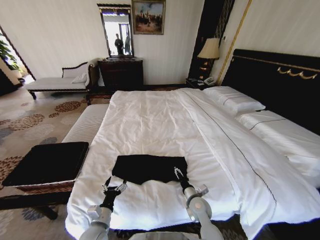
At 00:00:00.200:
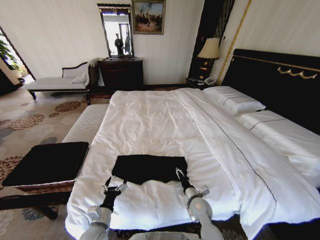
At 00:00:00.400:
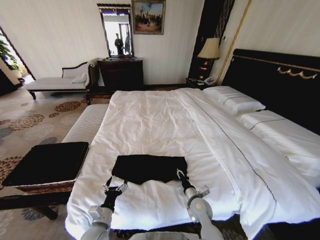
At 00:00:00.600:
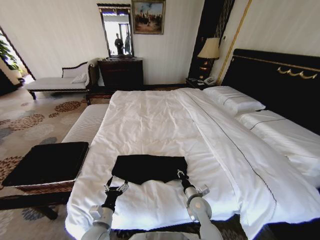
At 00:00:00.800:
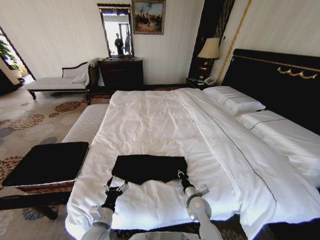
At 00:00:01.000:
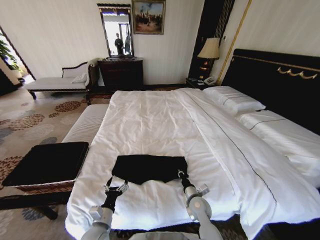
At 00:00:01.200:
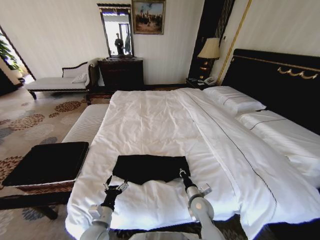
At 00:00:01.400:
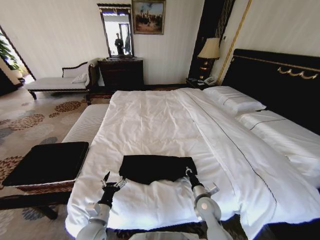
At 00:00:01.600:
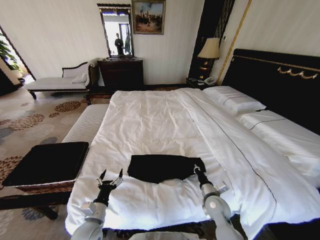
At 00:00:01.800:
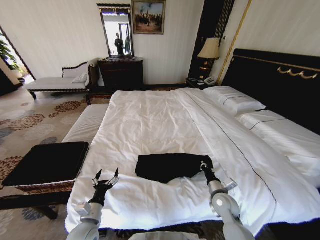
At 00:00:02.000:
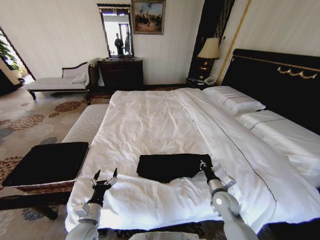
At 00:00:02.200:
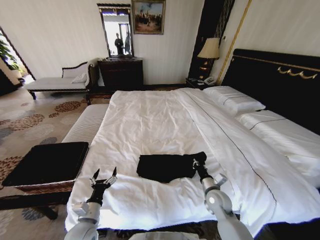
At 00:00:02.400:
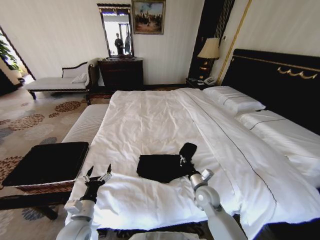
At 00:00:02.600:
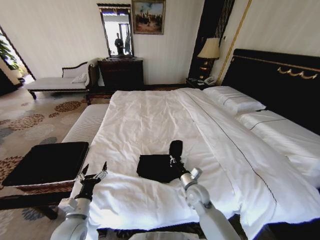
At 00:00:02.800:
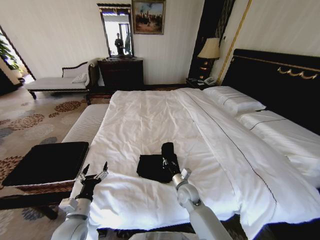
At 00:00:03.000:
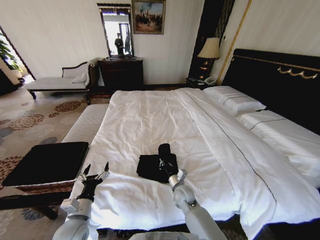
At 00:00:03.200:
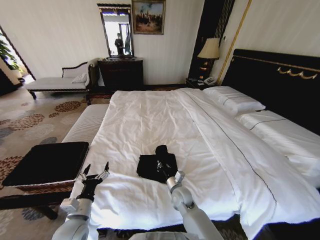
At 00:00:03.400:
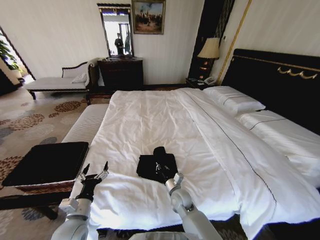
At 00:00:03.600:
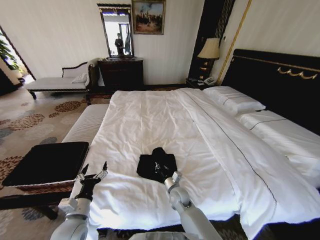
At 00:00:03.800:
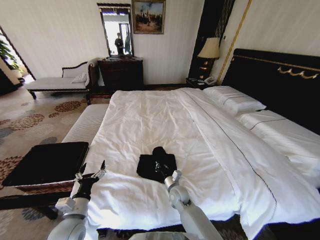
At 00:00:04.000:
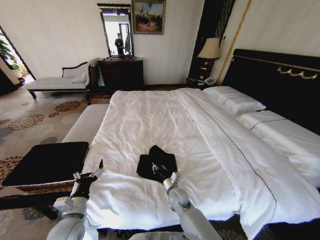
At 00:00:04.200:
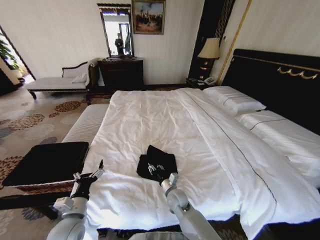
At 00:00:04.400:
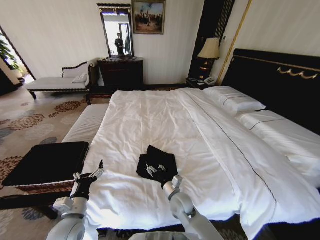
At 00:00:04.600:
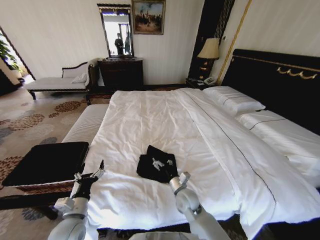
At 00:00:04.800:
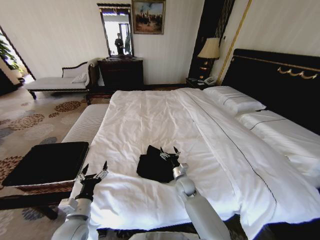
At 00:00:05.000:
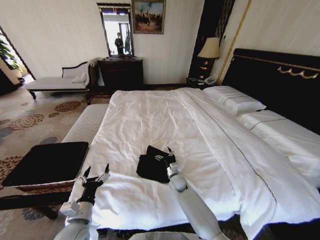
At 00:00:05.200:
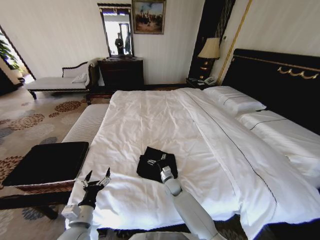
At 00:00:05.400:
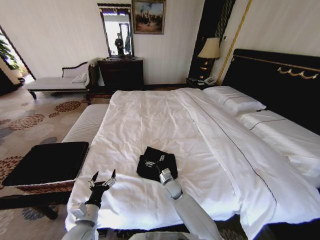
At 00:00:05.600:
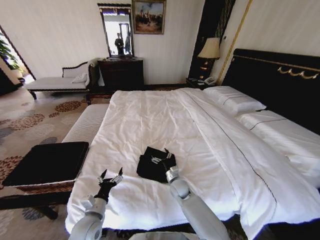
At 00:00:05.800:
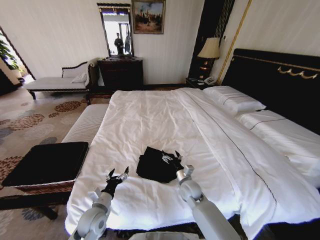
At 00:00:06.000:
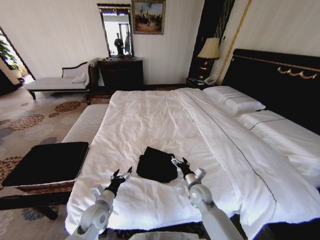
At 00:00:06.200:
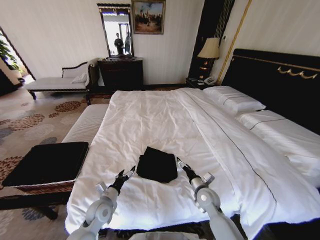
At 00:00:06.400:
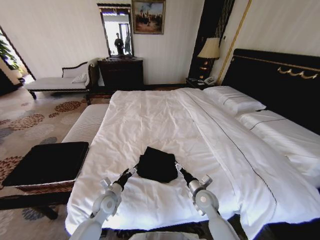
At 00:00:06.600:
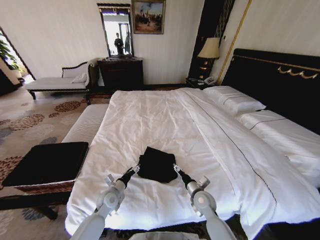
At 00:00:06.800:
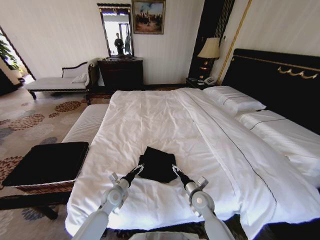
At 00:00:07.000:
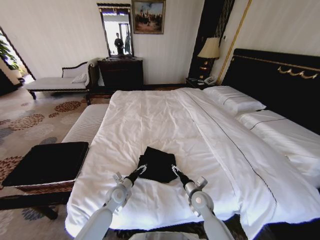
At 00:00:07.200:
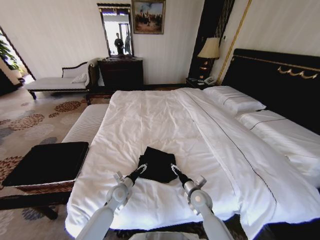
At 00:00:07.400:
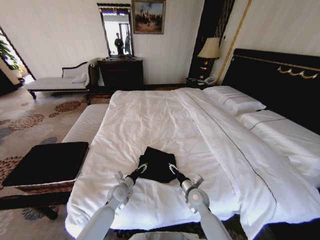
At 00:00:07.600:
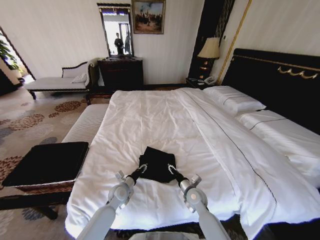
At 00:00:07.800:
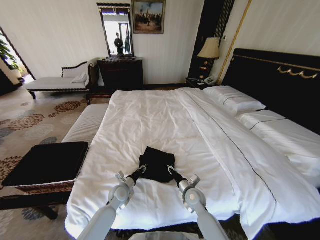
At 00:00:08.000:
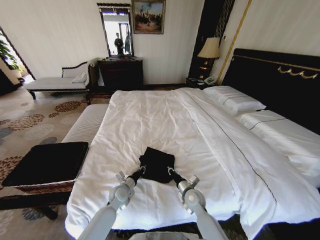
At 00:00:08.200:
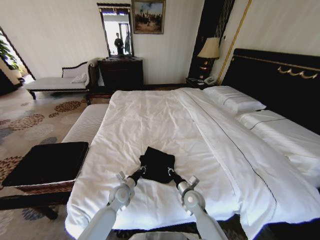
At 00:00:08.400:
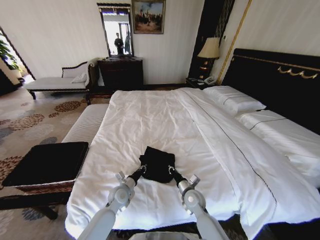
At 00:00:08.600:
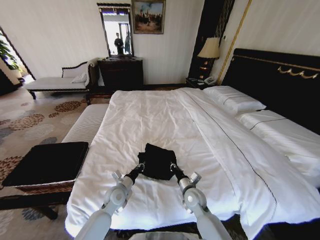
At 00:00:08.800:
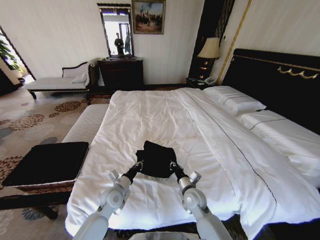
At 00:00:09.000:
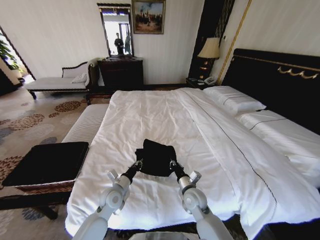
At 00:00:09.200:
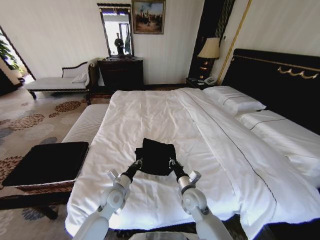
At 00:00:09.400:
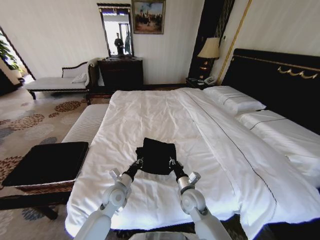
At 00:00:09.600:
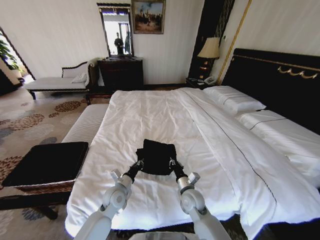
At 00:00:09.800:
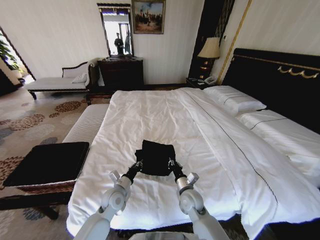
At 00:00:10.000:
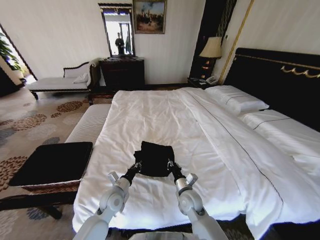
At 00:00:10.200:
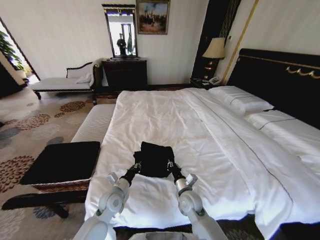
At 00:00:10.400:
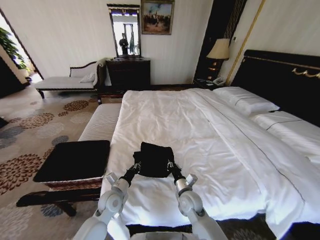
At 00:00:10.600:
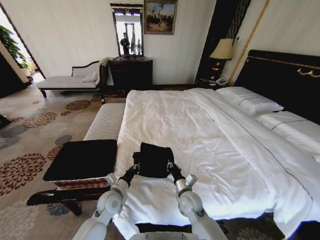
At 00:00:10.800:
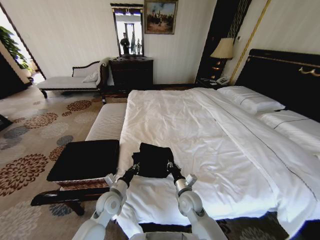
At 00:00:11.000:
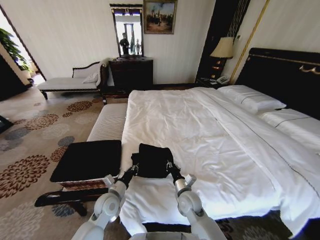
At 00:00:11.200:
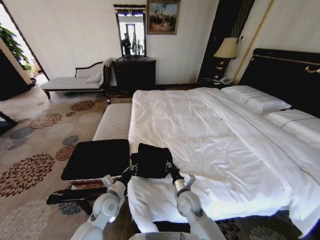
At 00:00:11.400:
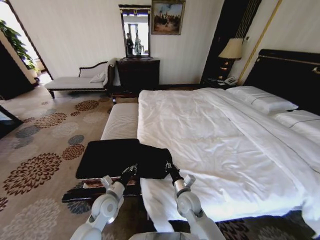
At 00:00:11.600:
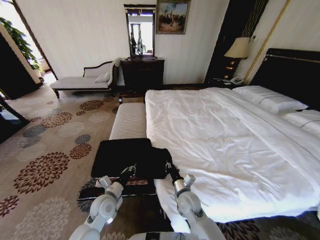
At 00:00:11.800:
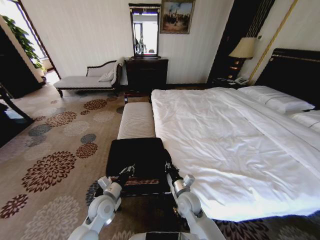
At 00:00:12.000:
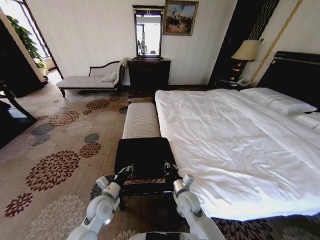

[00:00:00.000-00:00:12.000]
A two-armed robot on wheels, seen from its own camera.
Task of the whole recording: Fold the clothes on the bed and place them into the basket.
00:00:00.000 to 00:00:01.600: The right gripper is displaced to the right by some 5 cm, and closes.
00:00:01.600 to 00:00:03.000: The left gripper shifts by about 5 cm. The right gripper shifts approximately 15 cm to the left and forward.
00:00:03.000 to 00:00:04.400: The right gripper moves roughly 5 cm, and opens its fingers.
00:00:04.400 to 00:00:06.000: The left gripper goes approximately 10 cm downward, forward and to the right, while the right gripper shifts roughly 10 cm to the right, and moves some 10 cm forward and comes back.
00:00:06.000 to 00:00:07.600: The left gripper moves forward and to the right, some 10 cm, and closes.
00:00:07.600 to 00:00:09.000: Both grippers move upward, approximately 5 cm. The right gripper closes up; the left gripper closes up.

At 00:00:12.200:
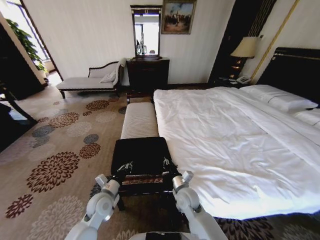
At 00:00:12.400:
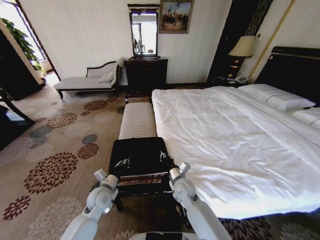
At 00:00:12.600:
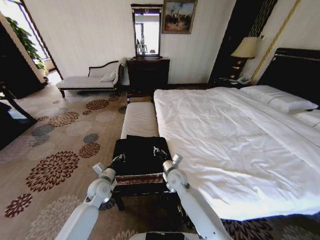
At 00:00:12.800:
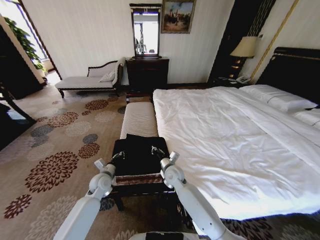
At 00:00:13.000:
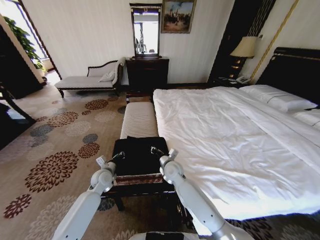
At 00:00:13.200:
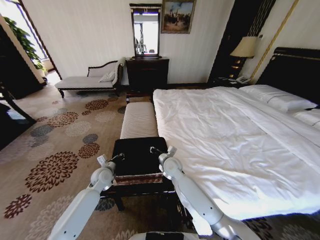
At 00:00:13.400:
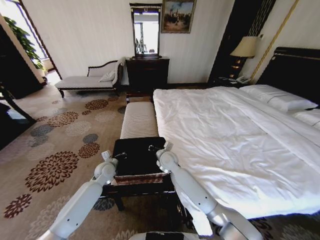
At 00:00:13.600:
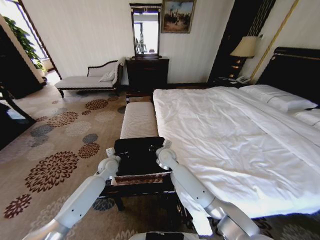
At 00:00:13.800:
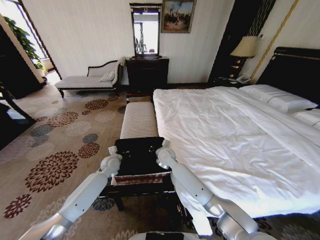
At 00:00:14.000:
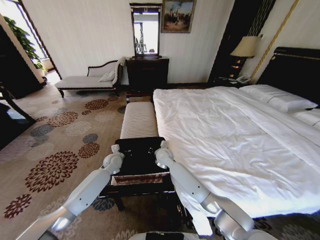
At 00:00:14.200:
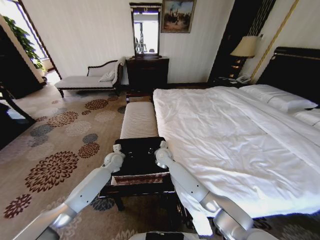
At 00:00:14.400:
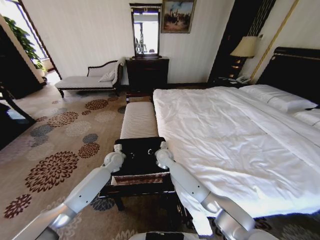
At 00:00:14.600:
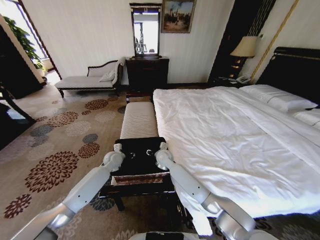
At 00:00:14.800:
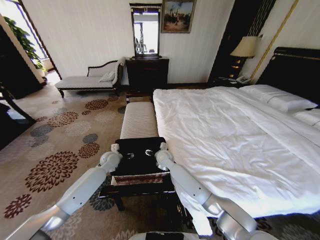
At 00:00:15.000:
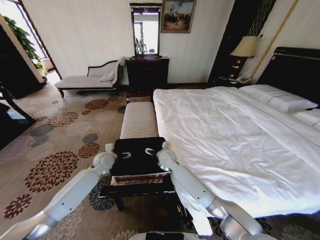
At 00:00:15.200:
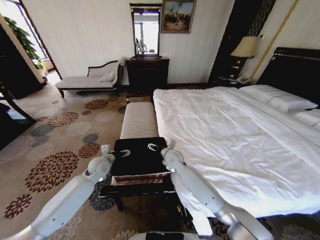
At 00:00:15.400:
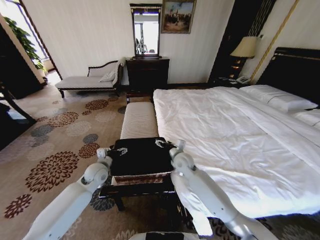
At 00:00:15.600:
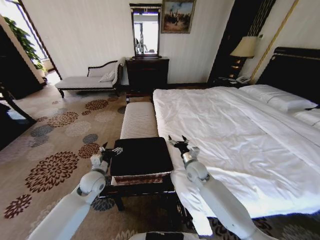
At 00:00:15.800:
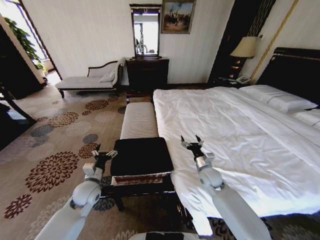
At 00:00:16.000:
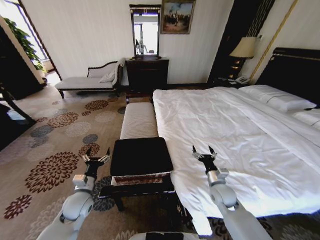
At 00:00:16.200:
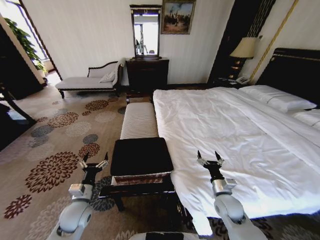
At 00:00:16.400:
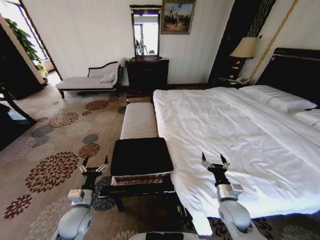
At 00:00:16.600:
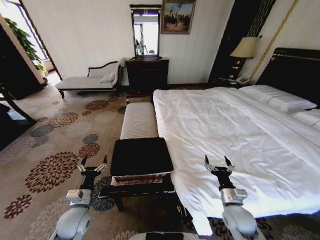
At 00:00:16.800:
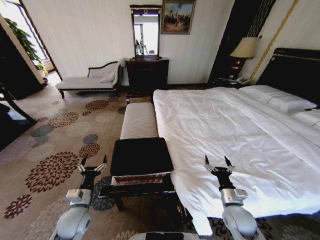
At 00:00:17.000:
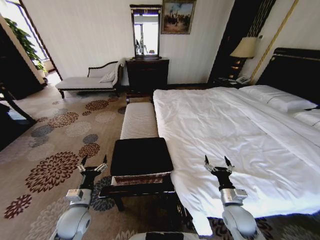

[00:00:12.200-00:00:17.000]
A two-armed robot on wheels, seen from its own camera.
Task of the whole recording: Fold the clothes on the bed and place them into the basket.
00:00:12.200 to 00:00:13.800: The left gripper travels forward by about 20 cm, while the right gripper is displaced forward and to the left by approximately 20 cm.
00:00:13.800 to 00:00:15.400: The right gripper travels to the right by approximately 5 cm, and opens its fingers; the left gripper travels backward by approximately 5 cm, and opens.
00:00:15.400 to 00:00:17.000: The right gripper heads backward and to the right, covering some 30 cm, while the left gripper is displaced backward by about 15 cm.
